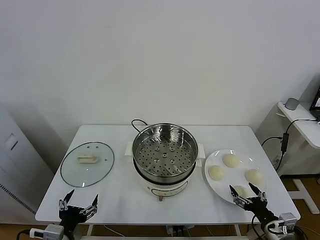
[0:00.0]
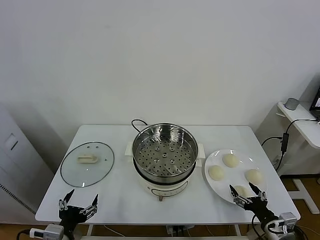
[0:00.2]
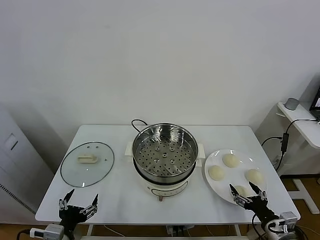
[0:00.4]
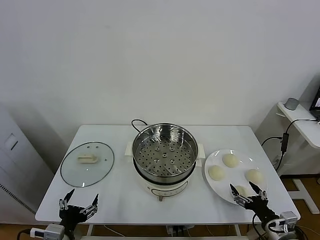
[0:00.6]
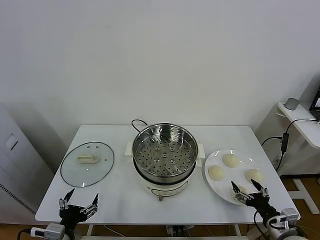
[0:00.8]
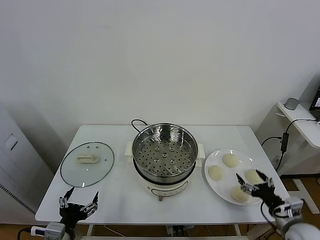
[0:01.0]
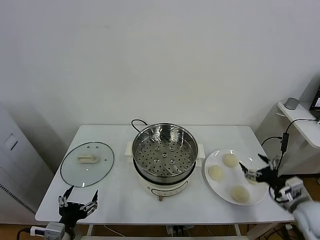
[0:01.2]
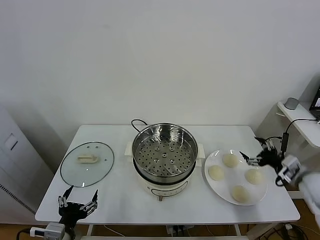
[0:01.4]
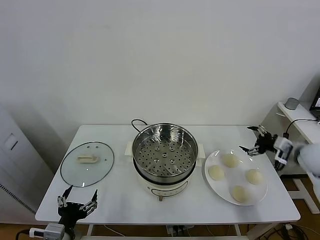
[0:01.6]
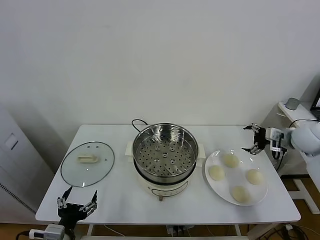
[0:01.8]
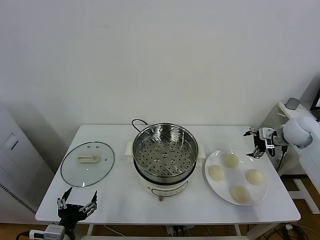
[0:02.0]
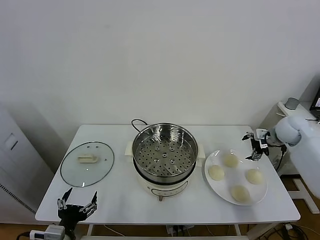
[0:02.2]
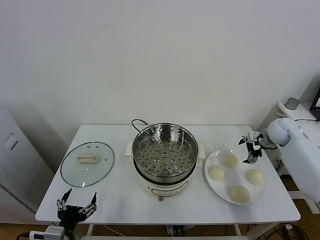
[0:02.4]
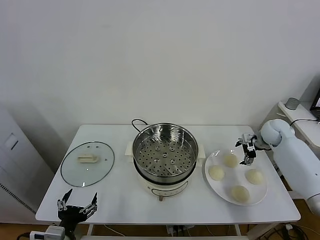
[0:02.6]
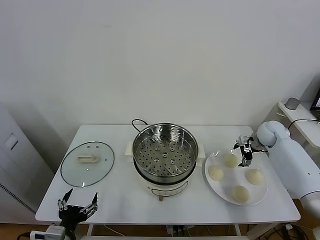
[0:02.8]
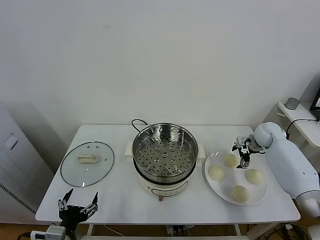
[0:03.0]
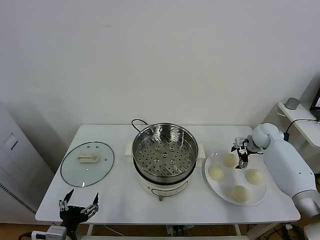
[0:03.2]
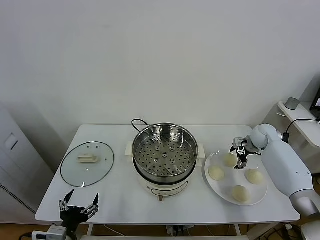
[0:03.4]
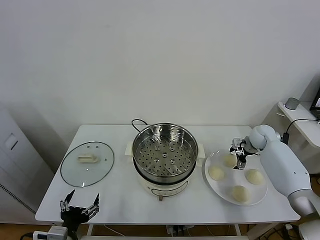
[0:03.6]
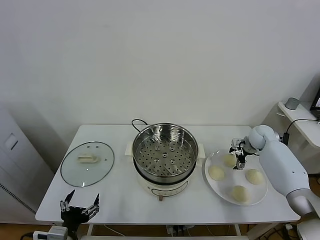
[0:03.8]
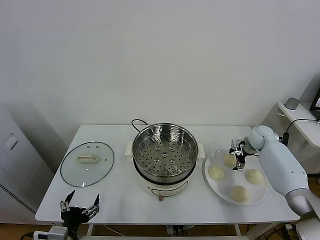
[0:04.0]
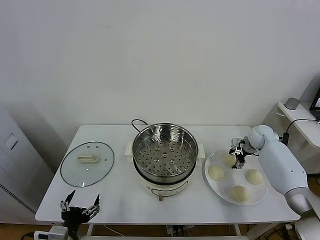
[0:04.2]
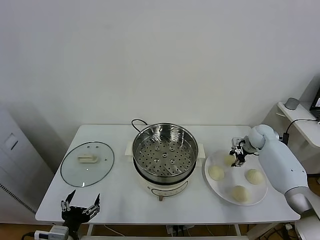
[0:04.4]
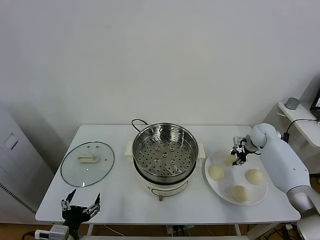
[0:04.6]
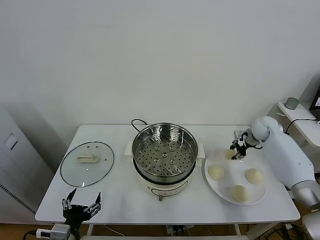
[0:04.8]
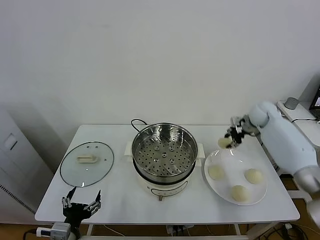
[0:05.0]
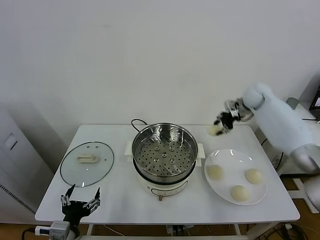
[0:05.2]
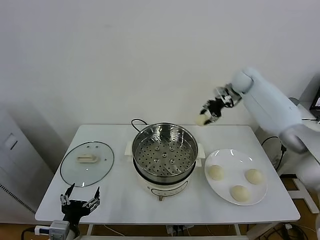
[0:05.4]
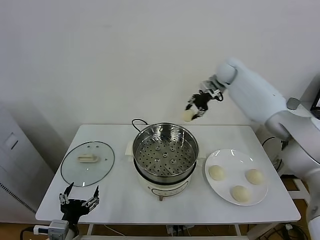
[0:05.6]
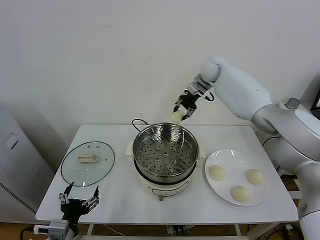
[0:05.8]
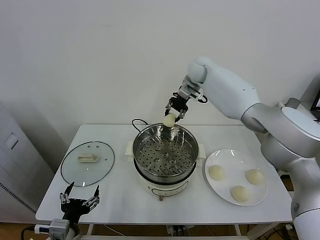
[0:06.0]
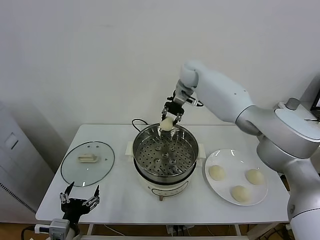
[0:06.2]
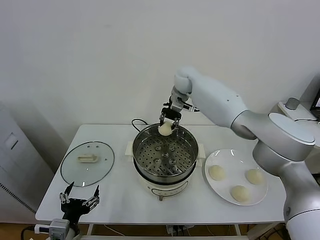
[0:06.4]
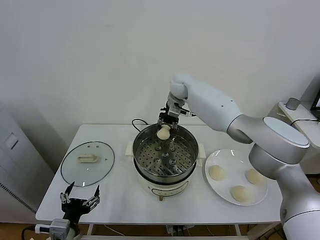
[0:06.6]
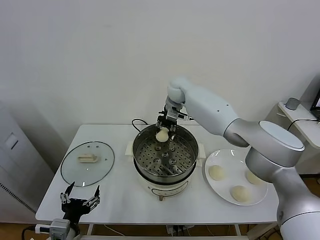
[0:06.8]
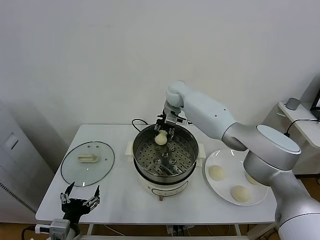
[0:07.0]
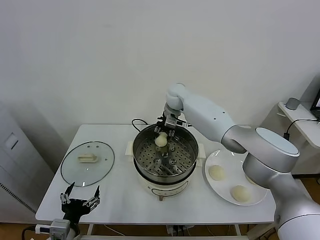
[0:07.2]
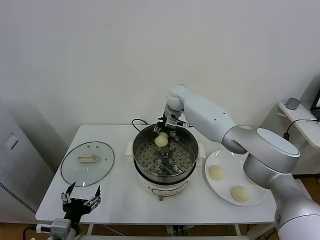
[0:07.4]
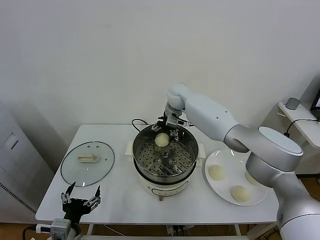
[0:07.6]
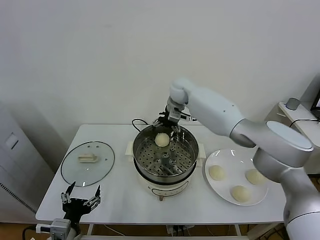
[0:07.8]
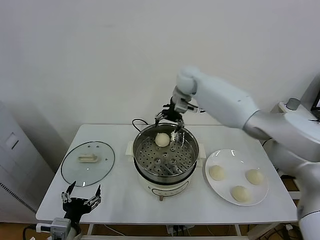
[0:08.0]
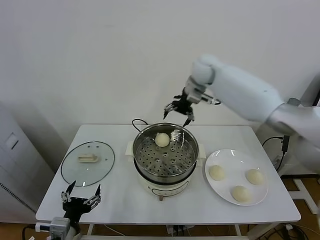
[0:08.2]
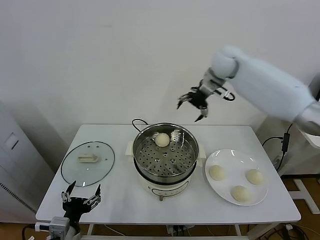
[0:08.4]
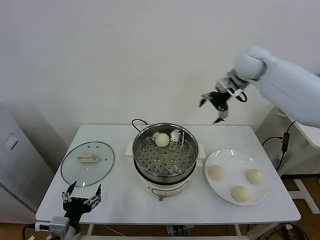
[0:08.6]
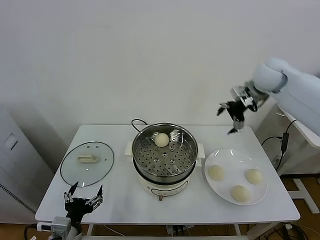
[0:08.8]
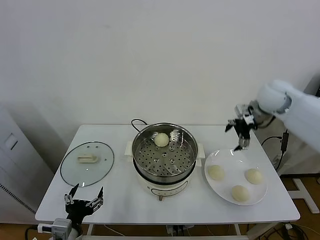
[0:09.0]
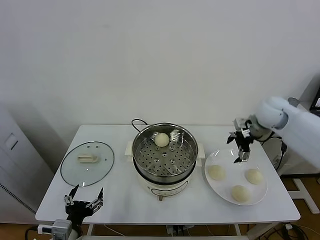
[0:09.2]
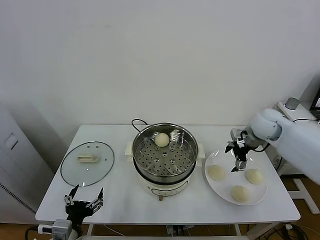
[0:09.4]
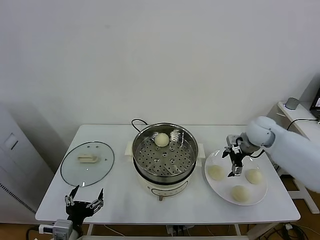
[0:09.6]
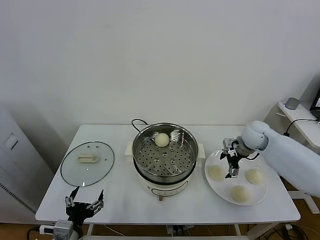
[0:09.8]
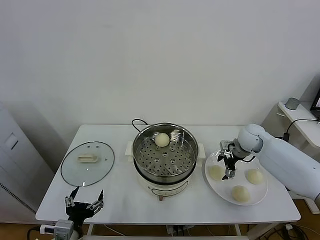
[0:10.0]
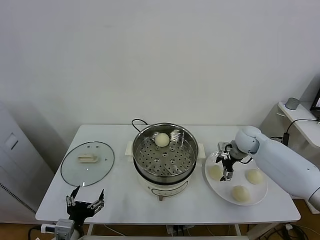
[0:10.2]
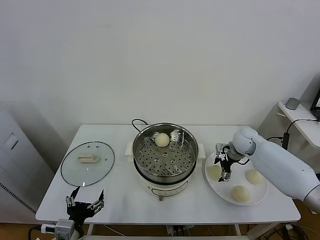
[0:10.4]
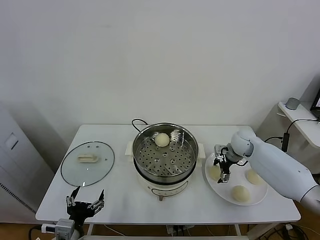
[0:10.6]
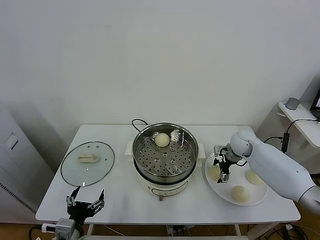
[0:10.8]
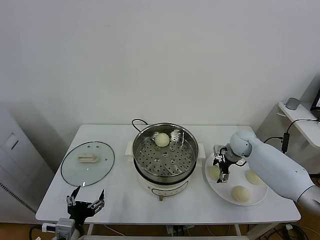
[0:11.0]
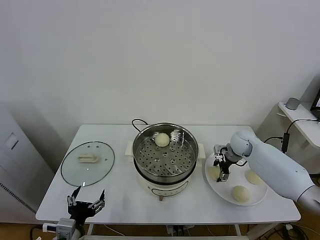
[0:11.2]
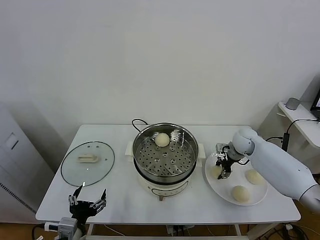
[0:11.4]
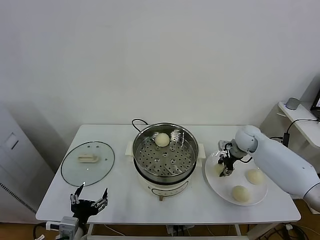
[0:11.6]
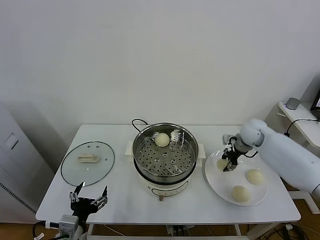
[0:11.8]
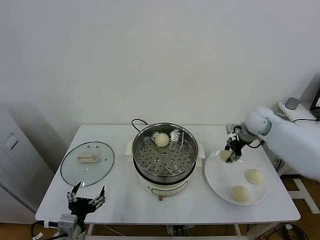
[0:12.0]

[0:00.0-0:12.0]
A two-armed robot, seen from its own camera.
Task of the whole recording: take steamed baozi put them in steamer.
Step, 0.0 to 4.4 s: Grasp the baozi in the plate with right gripper.
Step, 4.6 to 7.8 s: Place the baozi on the steamer with right gripper.
Step, 8.0 to 11.4 s: Grasp the baozi in the plate with right gripper.
1.6 to 3.0 s: The right gripper shifts some 15 cm forward and downward.
3.0 to 4.4 s: The right gripper closes its fingers.
4.4 to 6.0 s: The right gripper travels to the left and upward by about 40 cm.
6.0 to 7.6 s: The right gripper shifts some 10 cm downward and to the left, and opens up.
7.6 to 9.0 s: The right gripper travels to the right and backward by some 30 cm.
9.0 to 10.4 s: The right gripper shifts approximately 20 cm downward.
10.4 to 12.0 s: The right gripper travels upward by about 10 cm, and closes.

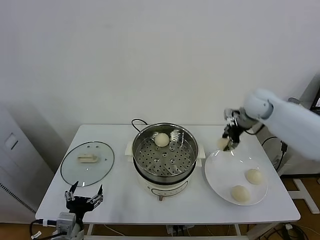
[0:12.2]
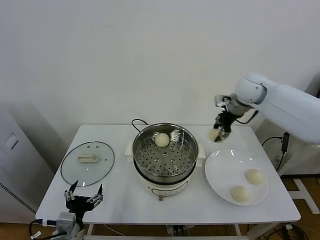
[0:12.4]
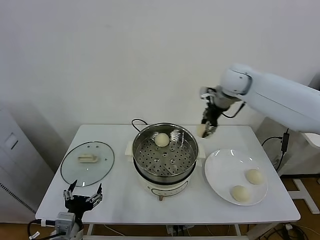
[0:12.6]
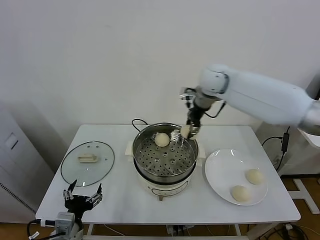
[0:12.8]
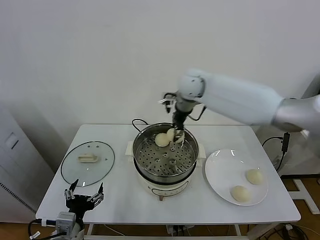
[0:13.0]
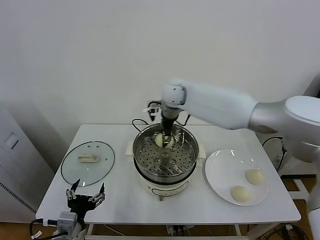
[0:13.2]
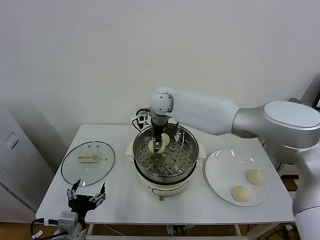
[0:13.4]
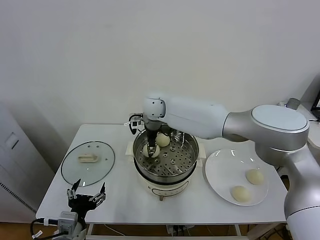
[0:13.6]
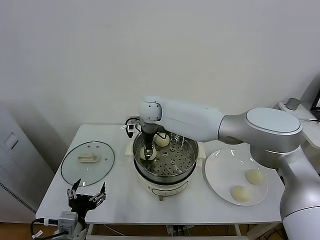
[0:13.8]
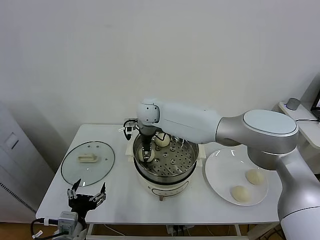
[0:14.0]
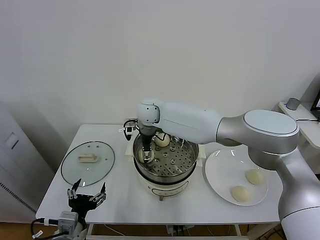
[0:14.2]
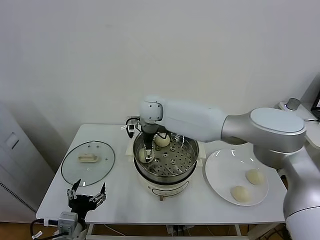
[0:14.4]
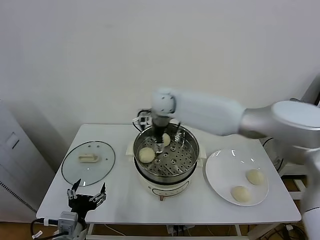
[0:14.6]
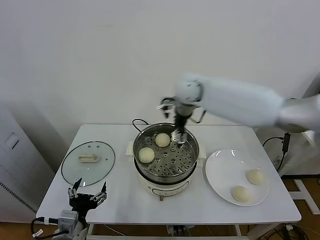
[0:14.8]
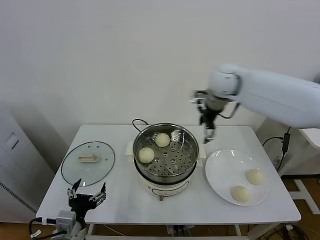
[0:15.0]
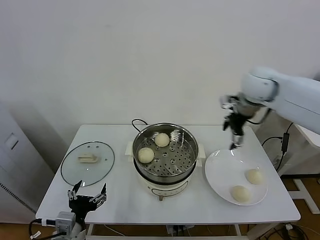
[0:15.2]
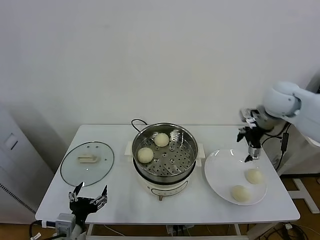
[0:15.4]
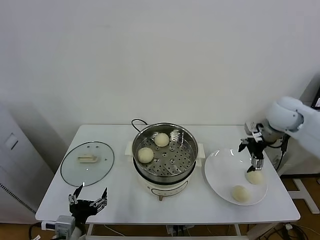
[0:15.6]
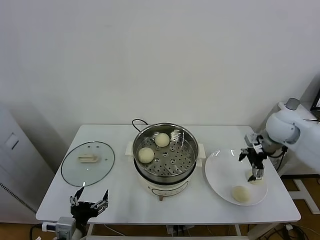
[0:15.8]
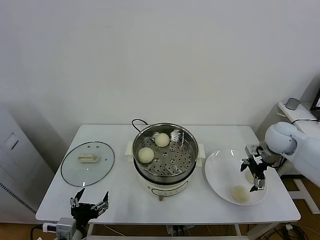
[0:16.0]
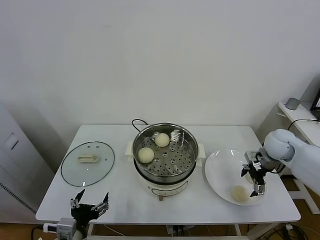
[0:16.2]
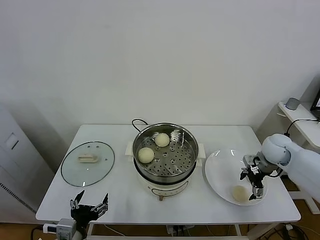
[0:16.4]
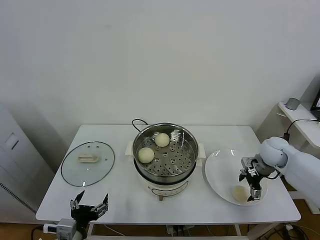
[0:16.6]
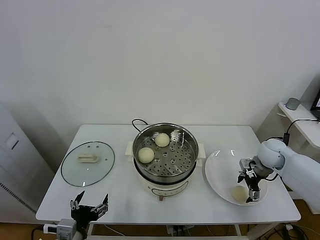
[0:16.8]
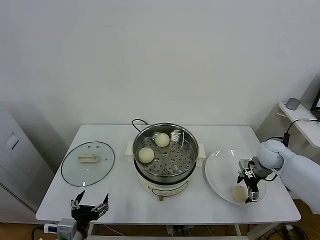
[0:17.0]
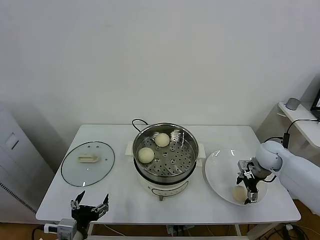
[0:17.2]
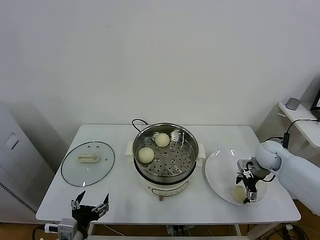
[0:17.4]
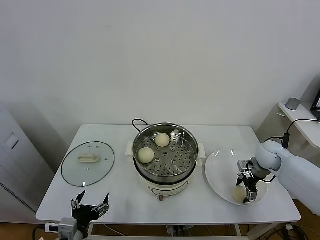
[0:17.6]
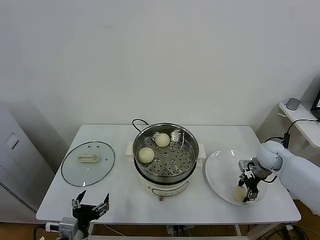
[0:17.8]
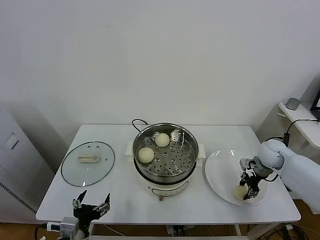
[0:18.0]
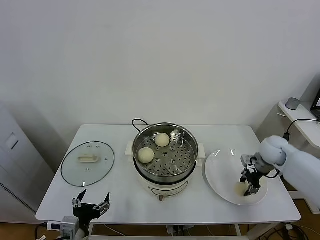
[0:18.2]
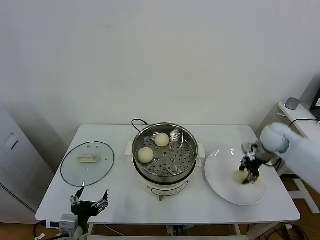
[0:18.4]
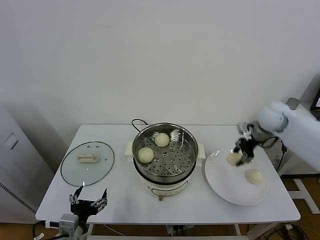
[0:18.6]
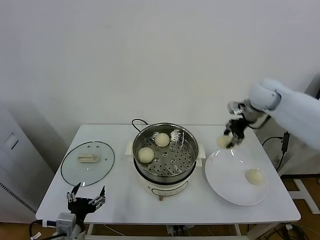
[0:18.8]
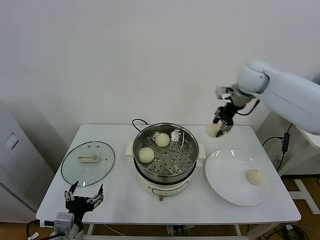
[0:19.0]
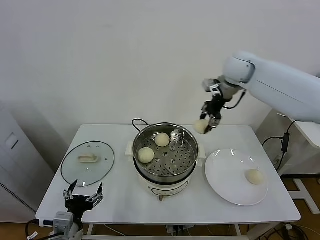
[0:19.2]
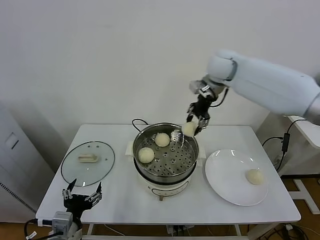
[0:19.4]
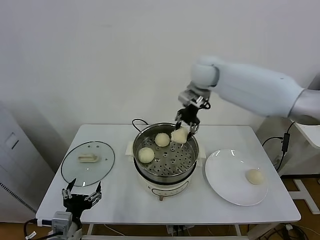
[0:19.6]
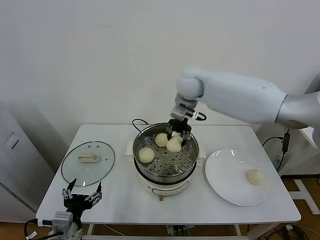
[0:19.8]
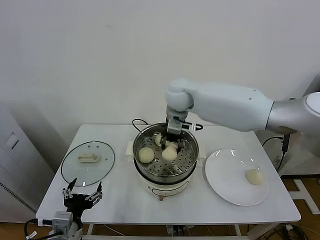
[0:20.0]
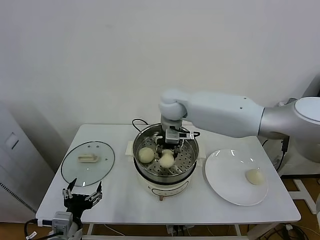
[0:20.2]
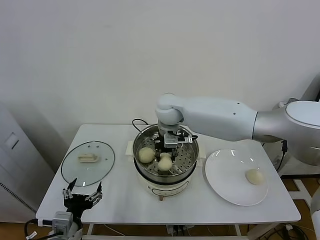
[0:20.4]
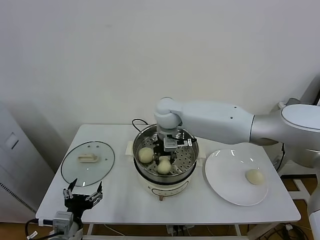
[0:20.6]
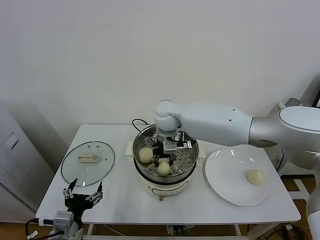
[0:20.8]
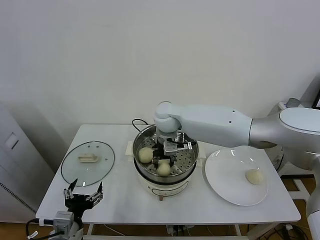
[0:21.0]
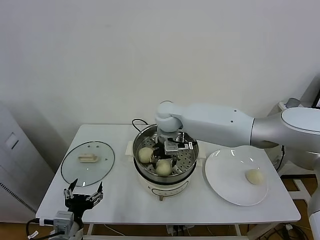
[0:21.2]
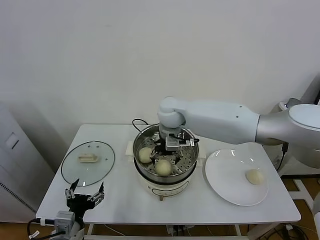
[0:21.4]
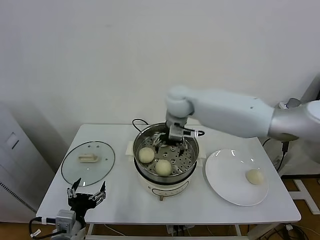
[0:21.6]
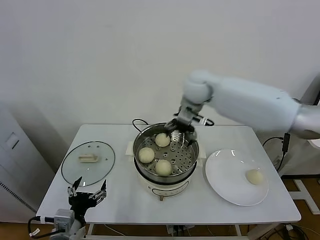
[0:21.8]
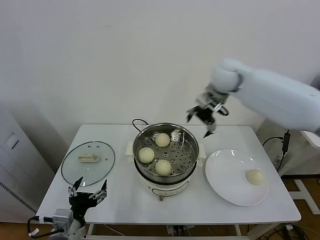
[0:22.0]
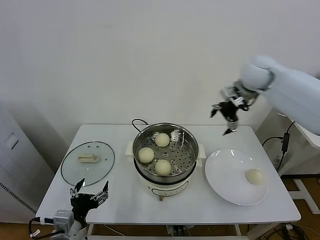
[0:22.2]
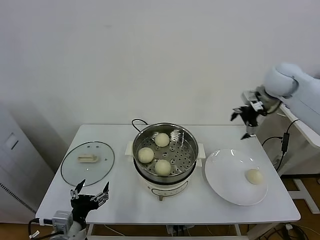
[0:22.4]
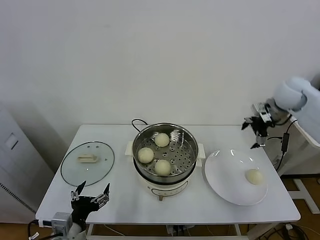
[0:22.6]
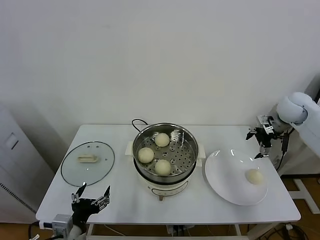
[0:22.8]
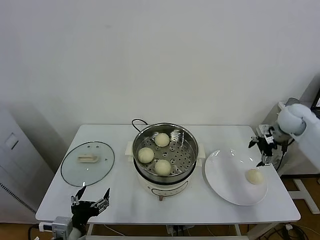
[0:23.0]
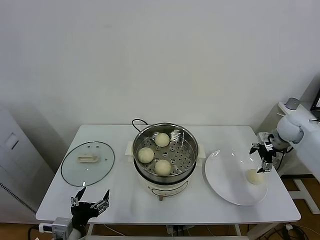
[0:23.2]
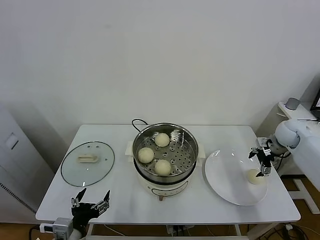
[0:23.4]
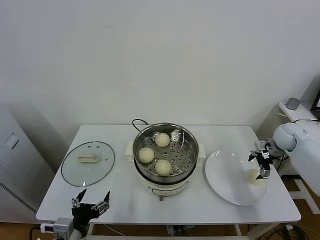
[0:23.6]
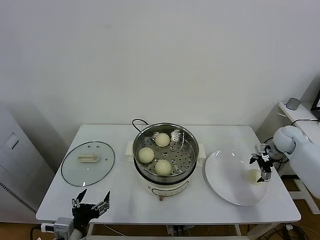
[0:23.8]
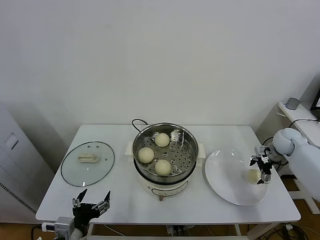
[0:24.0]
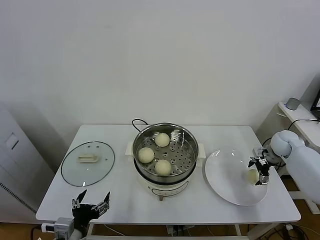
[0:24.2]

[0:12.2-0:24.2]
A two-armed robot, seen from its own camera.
Task of the whole recording: take steamed baozi put them in steamer.
Step, 12.2 to 14.4 s: Place the baozi on the steamer with right gripper.
Step, 14.6 to 18.0 s: Grasp the baozi in the plate with right gripper.
Step, 18.2 to 21.4 s: Place the baozi on the steamer with right gripper.
12.2 to 13.8 s: The right gripper heads to the left, covering roughly 35 cm.
13.8 to 15.2 s: The right gripper is displaced to the right by roughly 35 cm, and opens up.
15.2 to 16.6 s: The right gripper shifts approximately 25 cm downward and to the right.
16.6 to 18.2 s: The right gripper closes its fingers.
18.2 to 19.8 s: The right gripper goes approximately 40 cm to the left and upward.
19.8 to 21.2 s: The right gripper heads downward and to the left, covering roughly 10 cm, and opens.
21.2 to 22.6 s: The right gripper travels to the right by about 40 cm, and opens.
22.6 to 24.2 s: The right gripper goes some 20 cm downward.
